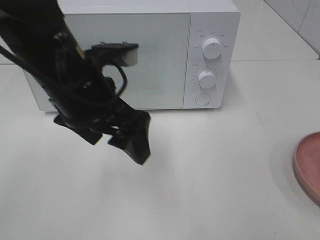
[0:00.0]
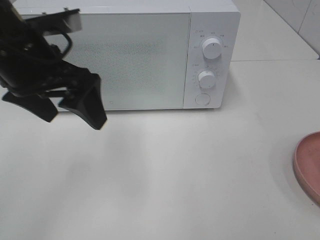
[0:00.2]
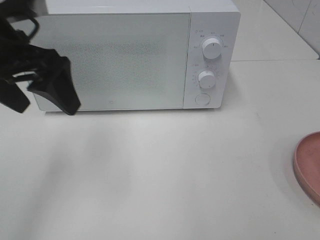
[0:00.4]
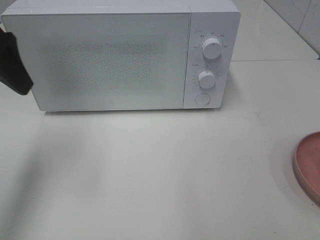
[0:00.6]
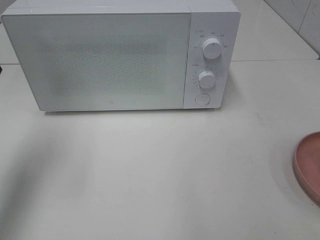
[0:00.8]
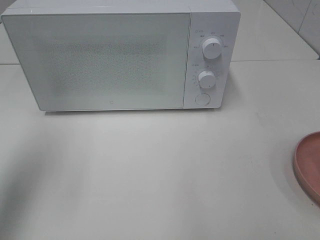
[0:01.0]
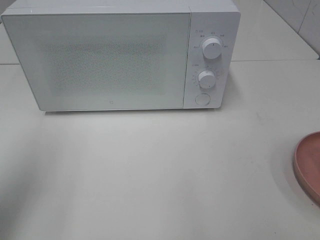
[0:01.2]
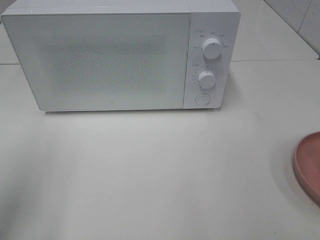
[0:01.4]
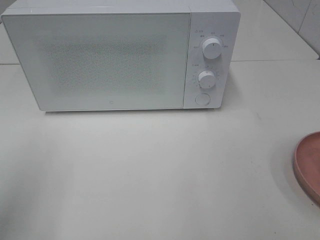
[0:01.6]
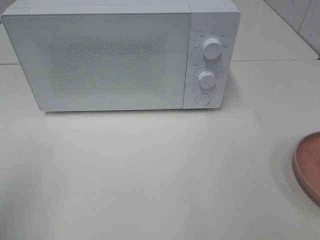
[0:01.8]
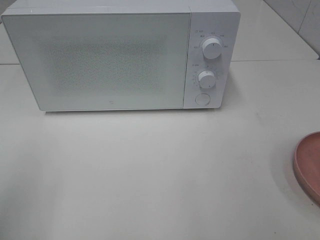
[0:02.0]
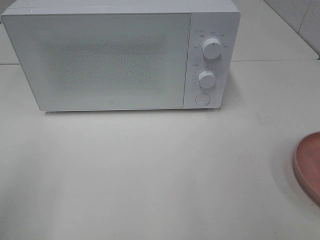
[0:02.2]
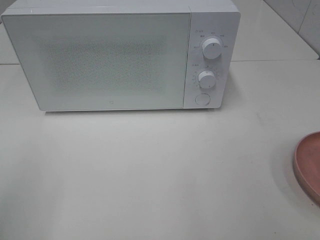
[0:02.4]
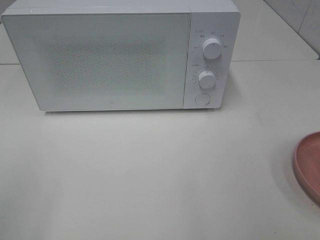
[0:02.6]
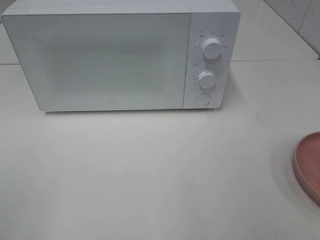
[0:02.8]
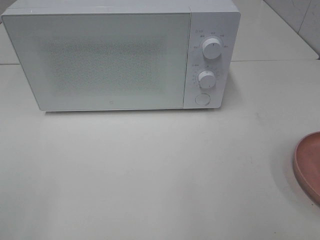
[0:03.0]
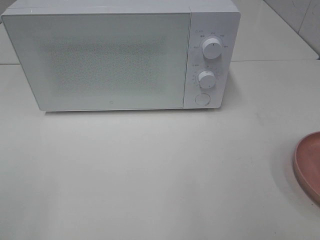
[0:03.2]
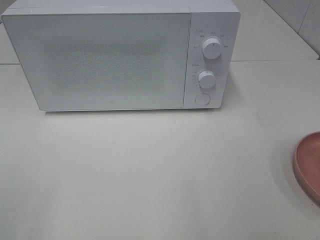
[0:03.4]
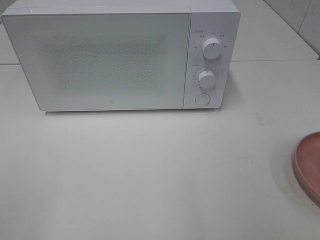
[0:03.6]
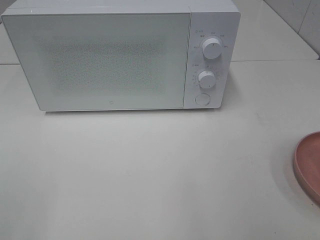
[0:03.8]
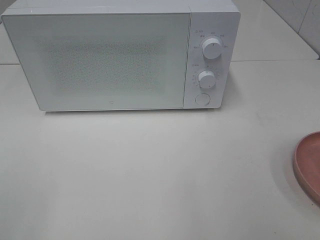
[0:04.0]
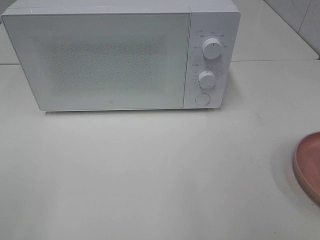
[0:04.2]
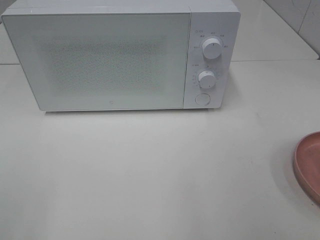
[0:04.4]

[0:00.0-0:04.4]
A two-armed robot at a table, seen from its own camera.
Task of the whole recording: Heat the burger.
0:00.0 to 0:01.4: The left gripper goes approximately 20 cm to the left and backward.
0:01.4 to 0:03.0: The left gripper moves backward, approximately 15 cm.
0:03.0 to 0:04.4: Both grippers stay put.

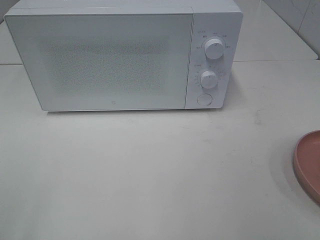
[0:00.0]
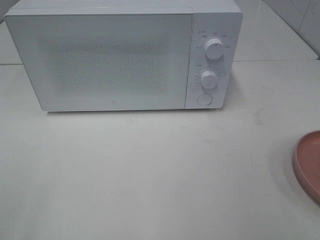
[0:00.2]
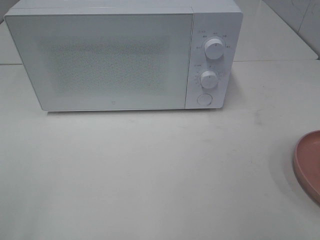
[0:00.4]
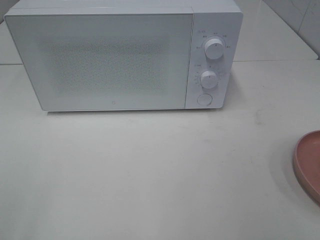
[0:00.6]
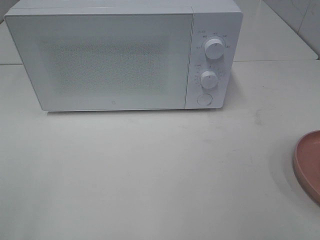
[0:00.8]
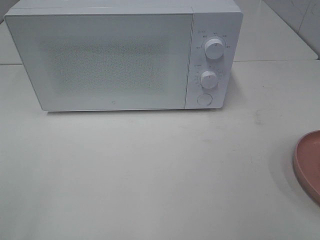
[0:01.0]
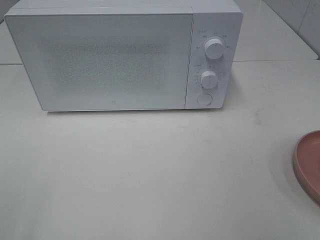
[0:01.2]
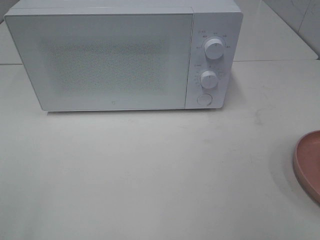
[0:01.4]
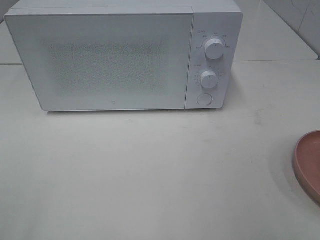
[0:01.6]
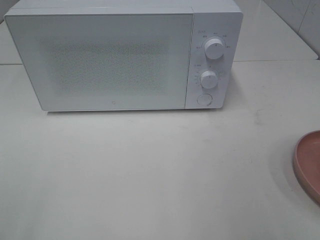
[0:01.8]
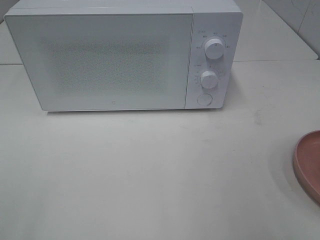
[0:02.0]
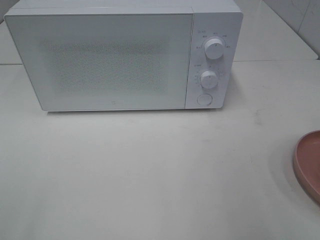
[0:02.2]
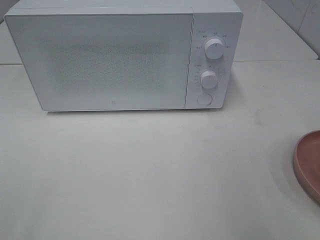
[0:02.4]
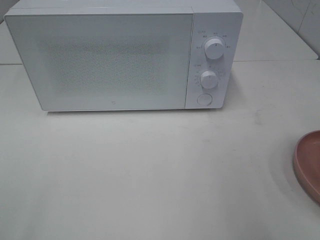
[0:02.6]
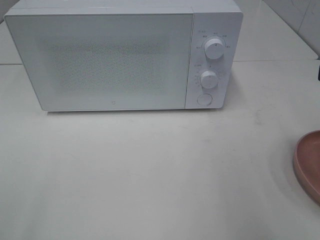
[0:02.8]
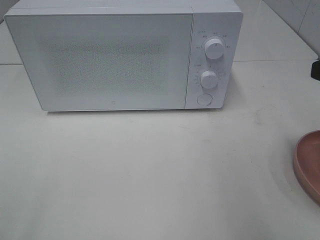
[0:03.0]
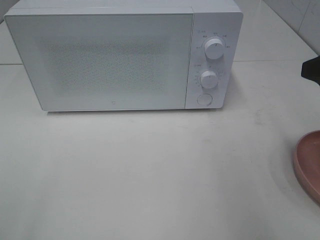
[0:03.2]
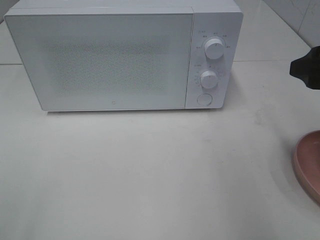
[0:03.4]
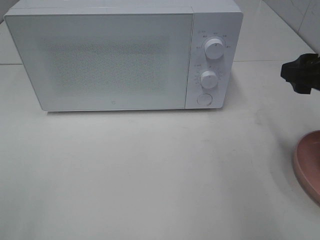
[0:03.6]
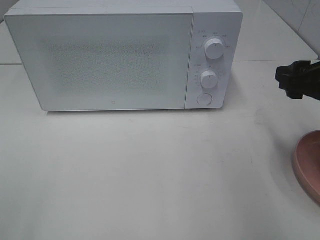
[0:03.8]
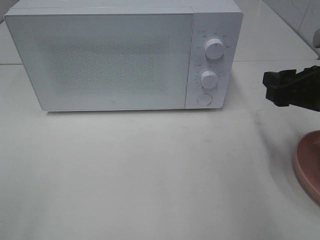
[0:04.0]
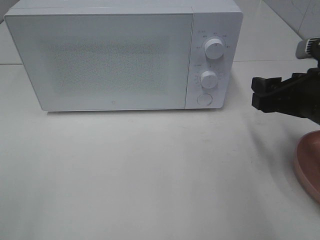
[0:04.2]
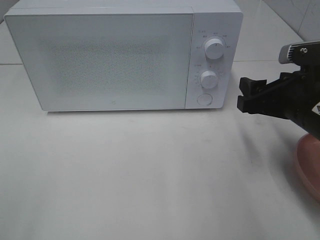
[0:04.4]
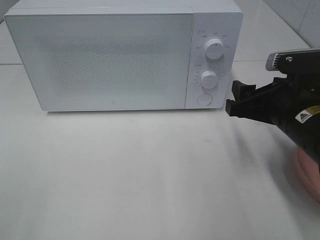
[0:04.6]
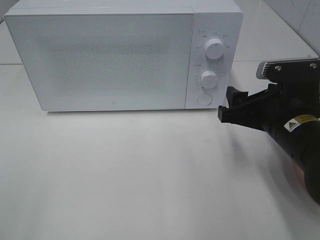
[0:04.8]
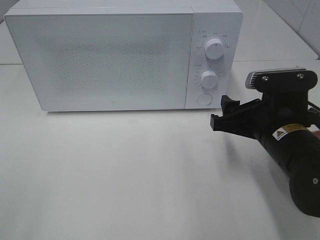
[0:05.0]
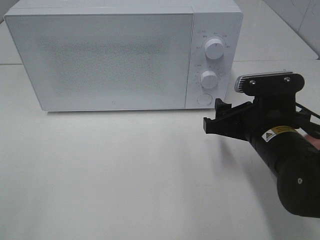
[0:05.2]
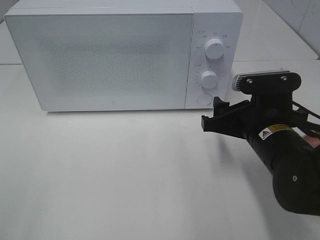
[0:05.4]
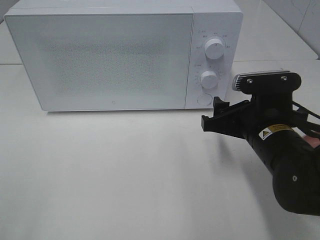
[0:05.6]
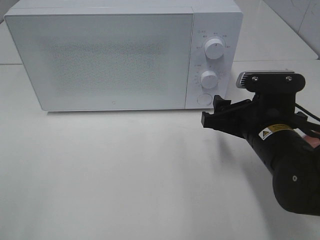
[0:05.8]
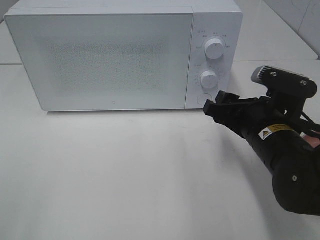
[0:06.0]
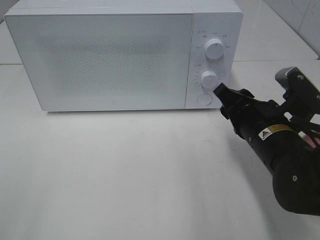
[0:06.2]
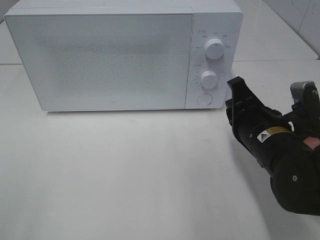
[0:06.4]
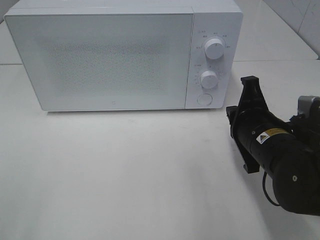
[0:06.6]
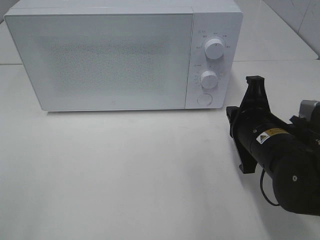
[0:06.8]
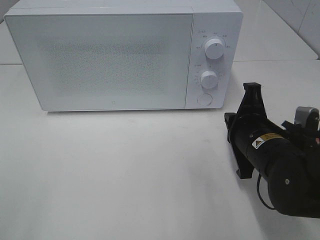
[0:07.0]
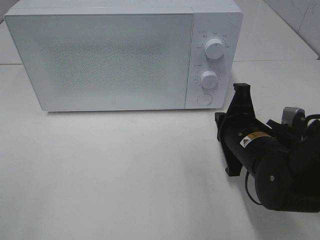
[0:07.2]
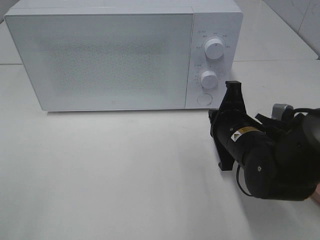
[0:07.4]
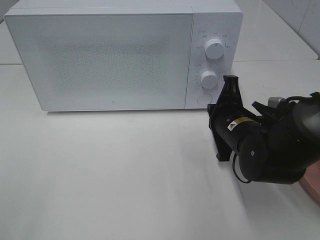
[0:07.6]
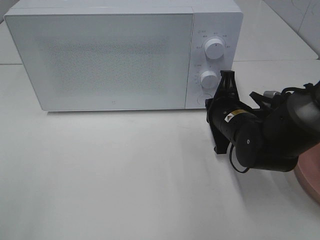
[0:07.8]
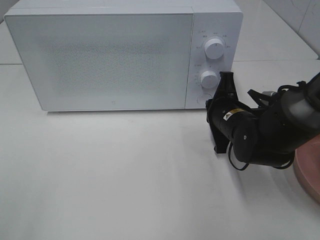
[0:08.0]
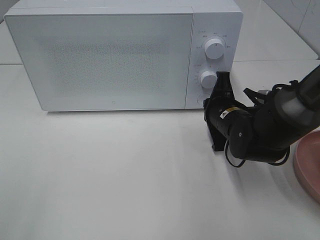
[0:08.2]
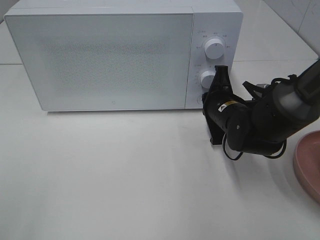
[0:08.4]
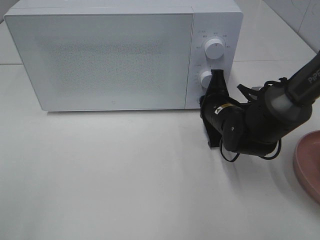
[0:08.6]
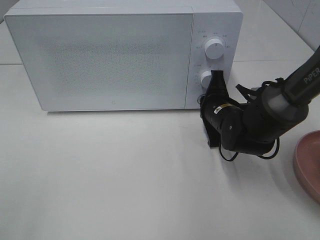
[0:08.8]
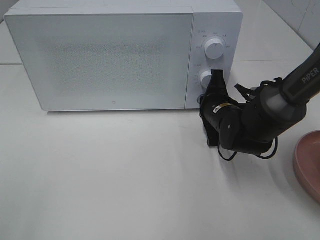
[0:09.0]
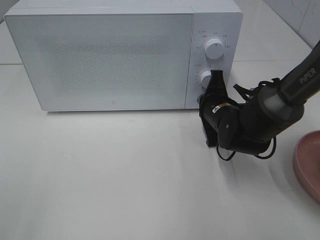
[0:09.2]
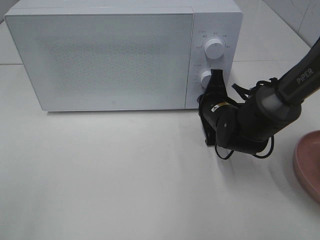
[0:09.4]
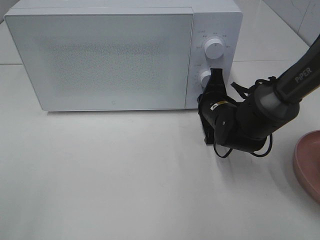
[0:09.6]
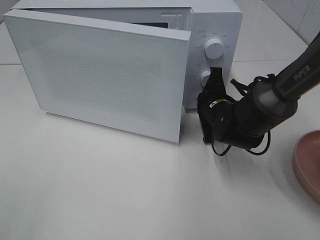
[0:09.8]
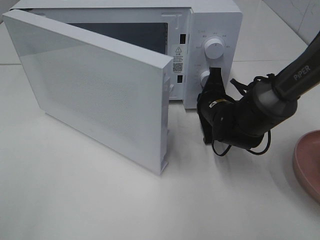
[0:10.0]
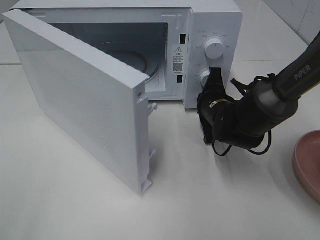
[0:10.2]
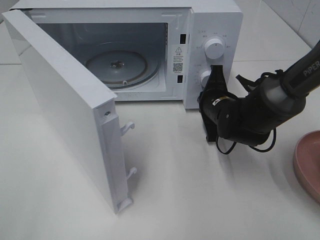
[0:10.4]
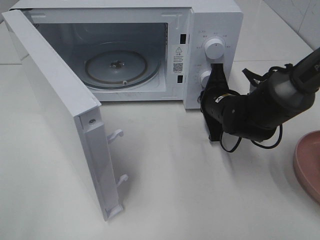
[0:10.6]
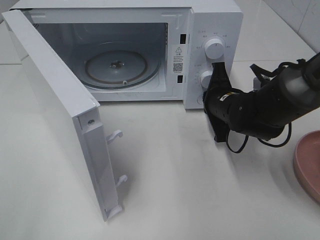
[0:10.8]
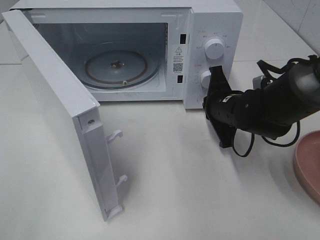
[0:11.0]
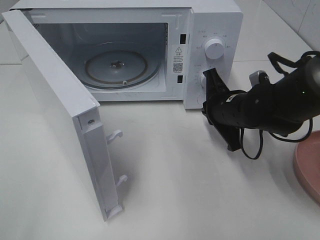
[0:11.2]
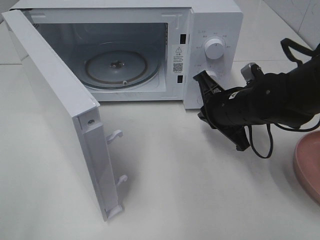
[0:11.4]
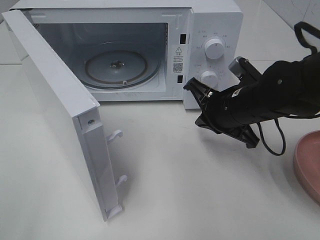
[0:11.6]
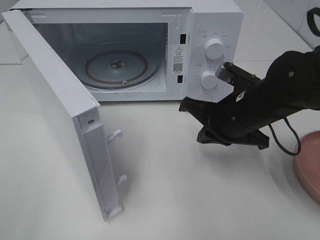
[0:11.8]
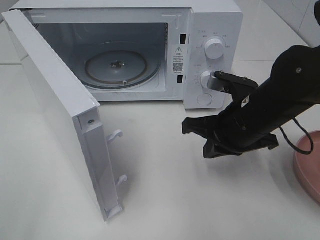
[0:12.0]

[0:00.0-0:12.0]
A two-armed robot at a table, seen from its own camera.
Task of the whole recording: Heat the burger.
Step, 0:00.0 to 0:11.2: Right hand: press the switch.
0:03.0 to 0:04.4: The right gripper travels downward, to the left and forward by some 15 cm.
0:04.4 to 0:06.0: The right gripper travels to the left by about 5 cm.
0:06.0 to 0:07.6: The right gripper moves forward, approximately 5 cm, and closes its fingers.
0:07.6 to 0:09.0: The right gripper heads forward, covering some 5 cm.
0:10.4 to 0:12.0: The right gripper moves backward and upward, roughly 10 cm.

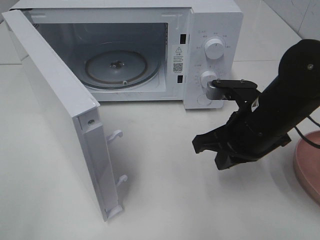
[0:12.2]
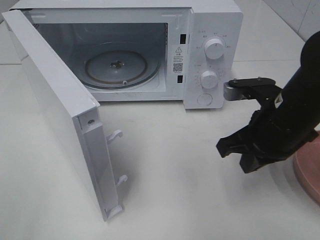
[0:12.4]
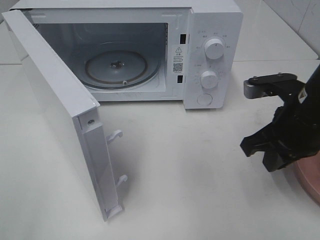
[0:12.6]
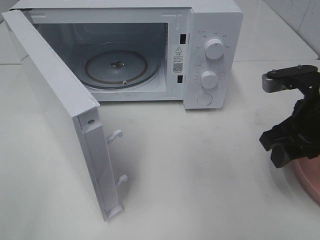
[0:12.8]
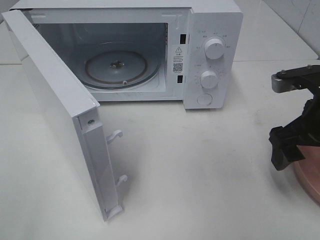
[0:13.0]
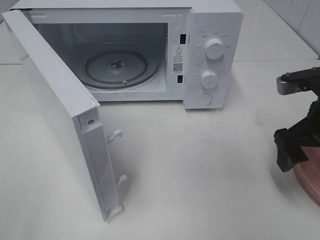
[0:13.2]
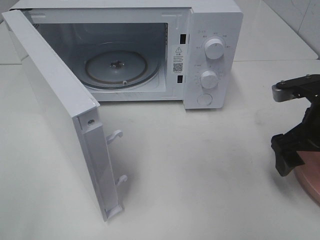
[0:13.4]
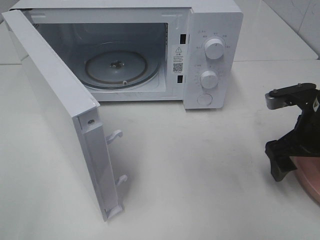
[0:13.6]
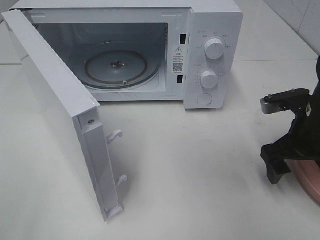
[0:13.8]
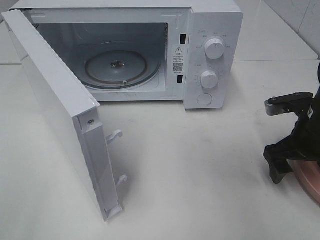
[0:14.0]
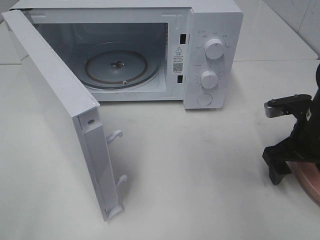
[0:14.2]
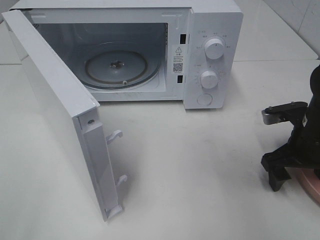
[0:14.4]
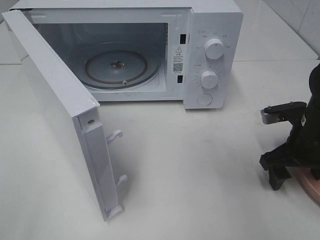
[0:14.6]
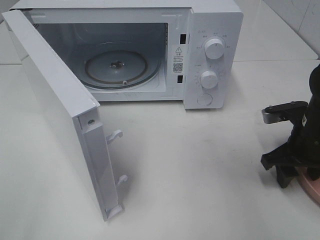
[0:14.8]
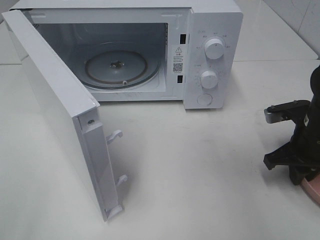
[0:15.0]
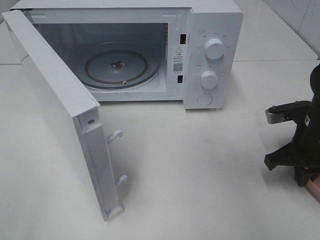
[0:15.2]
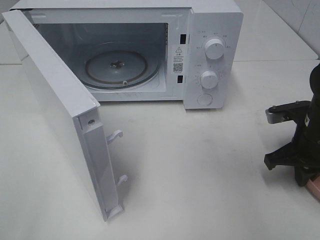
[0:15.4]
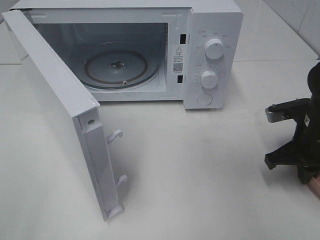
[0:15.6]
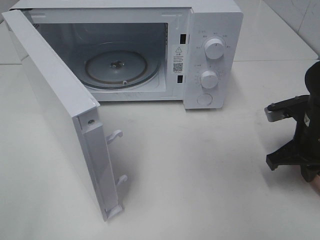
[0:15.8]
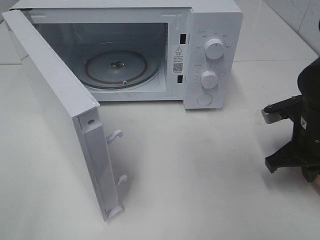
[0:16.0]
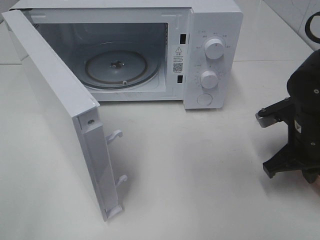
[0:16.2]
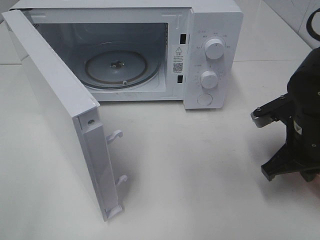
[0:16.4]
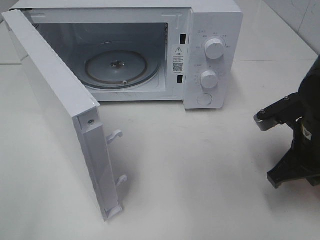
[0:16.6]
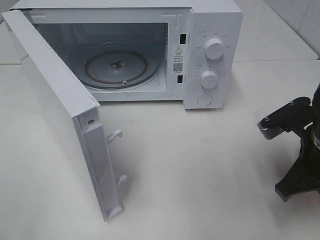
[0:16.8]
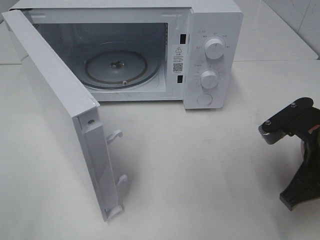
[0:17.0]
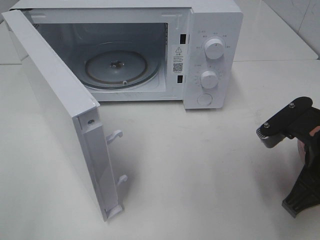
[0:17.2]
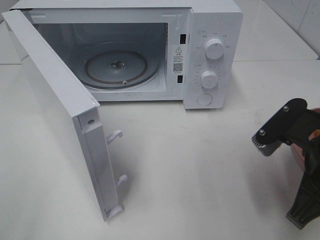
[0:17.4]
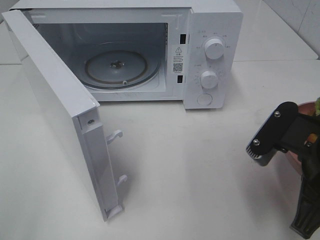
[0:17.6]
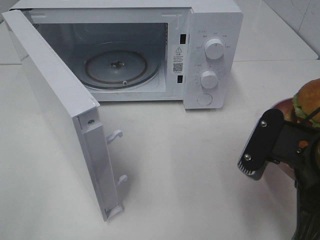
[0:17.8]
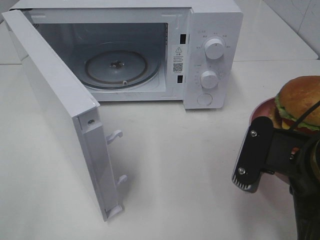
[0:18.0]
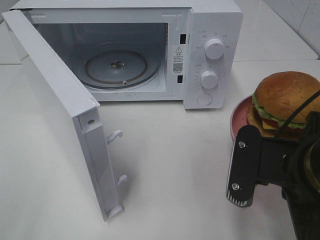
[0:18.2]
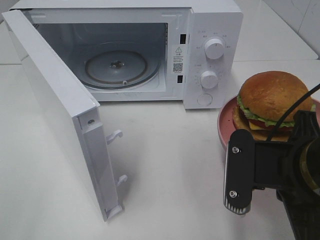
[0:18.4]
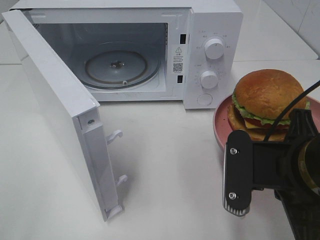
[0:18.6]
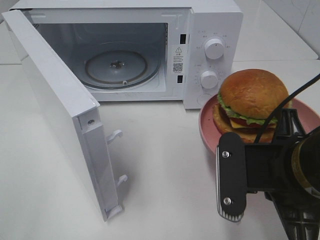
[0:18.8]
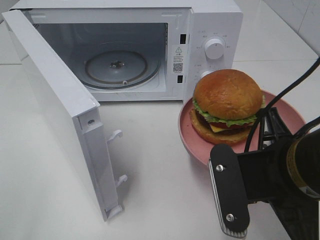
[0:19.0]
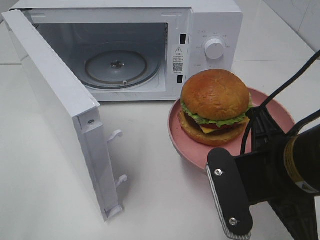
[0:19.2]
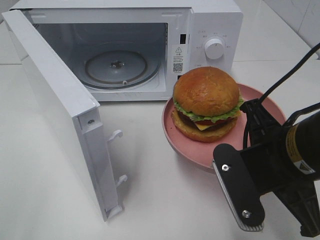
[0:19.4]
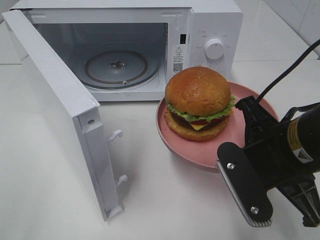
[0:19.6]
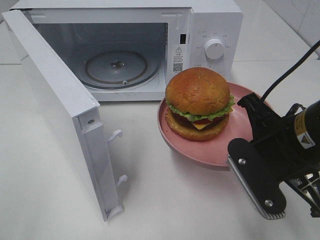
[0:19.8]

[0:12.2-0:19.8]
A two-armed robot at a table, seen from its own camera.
Task of the whole recording: Heat the burger.
Step, 0:12.2 to 0:15.6: Right hand: grab the plate with the hamburger.
0:12.2 to 0:13.8: The right gripper travels to the right by some 10 cm, and opens its fingers.
0:13.8 to 0:15.2: The right gripper closes up.
0:15.2 to 0:16.8: The right gripper travels backward and upward by some 10 cm.
0:16.8 to 0:18.2: The right gripper shifts approximately 10 cm backward and to the left.
0:18.2 to 0:19.8: The right gripper moves some 5 cm.
